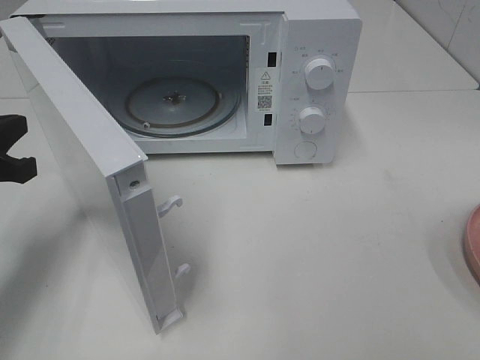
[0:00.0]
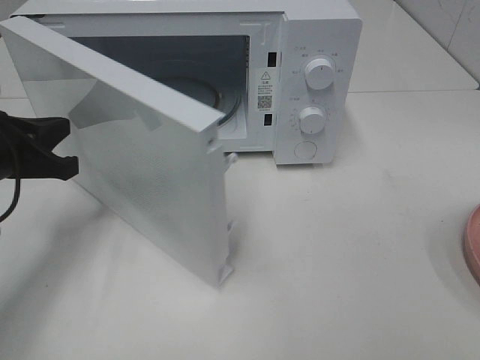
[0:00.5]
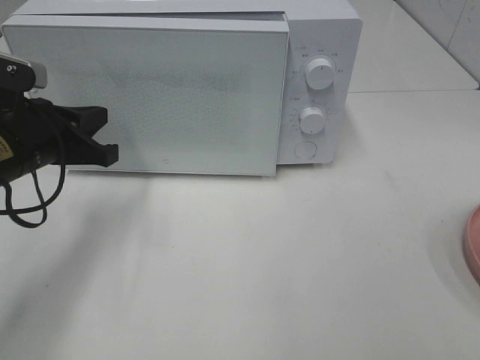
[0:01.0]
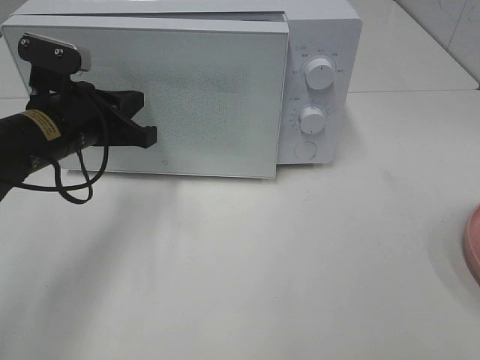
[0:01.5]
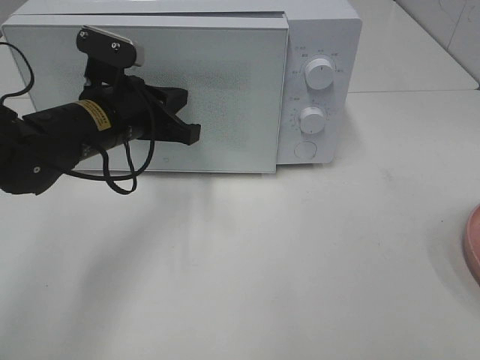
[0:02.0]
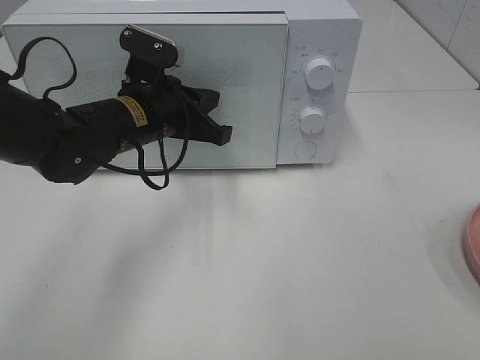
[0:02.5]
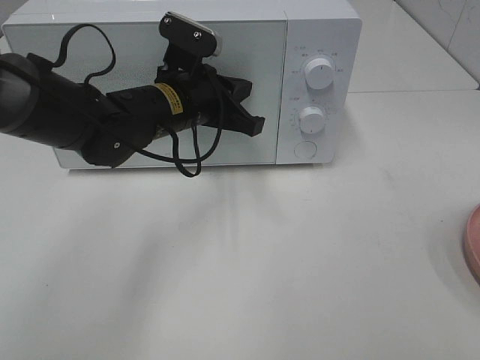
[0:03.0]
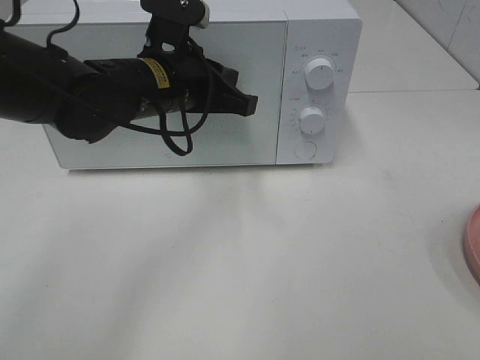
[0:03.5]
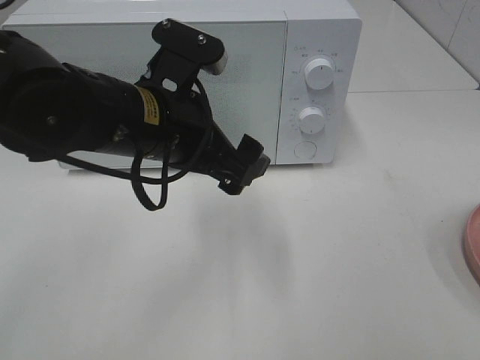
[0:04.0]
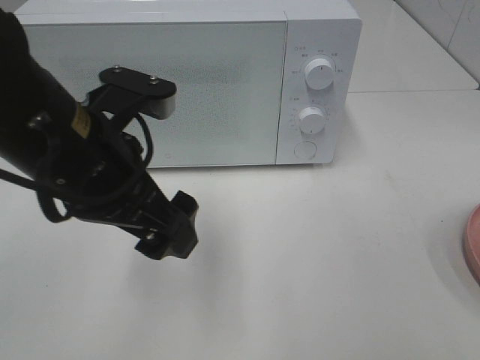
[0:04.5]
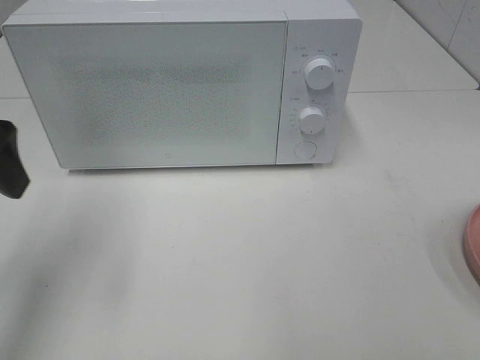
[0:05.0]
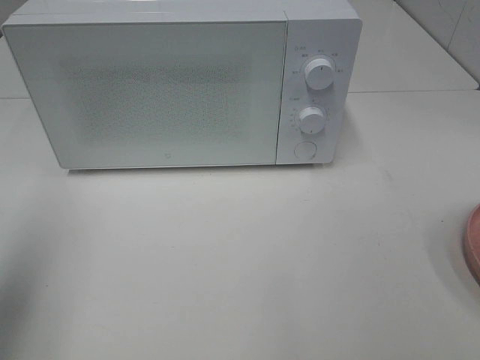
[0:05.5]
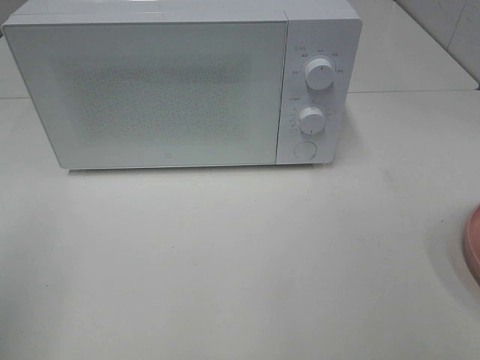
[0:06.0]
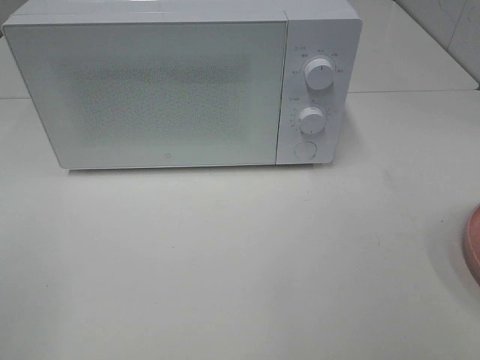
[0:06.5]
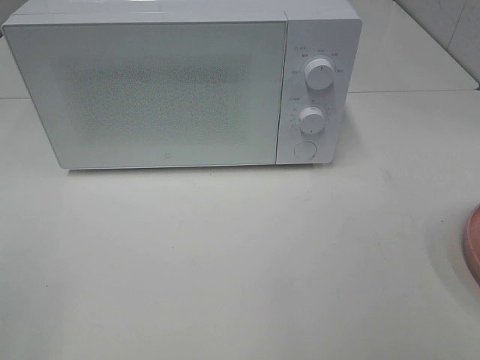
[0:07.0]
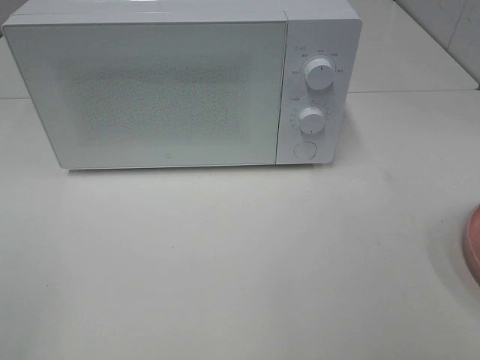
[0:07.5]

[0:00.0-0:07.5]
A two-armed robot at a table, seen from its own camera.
Task of the whole recording: Heat the burger.
Step, 0:00.0 to 0:03.0: Left hand: close the microwave door.
0:00.0 to 0:02.0: The left gripper moves to the right and forward, about 15 cm.
0:02.0 to 0:04.0: The left gripper is displaced backward, to the right and upward by roughly 10 cm, and opens its fingers.
0:04.0 to 0:05.5: The left gripper travels to the left and backward by about 25 cm.
0:05.5 to 0:07.5: The left gripper goes about 15 cm backward.

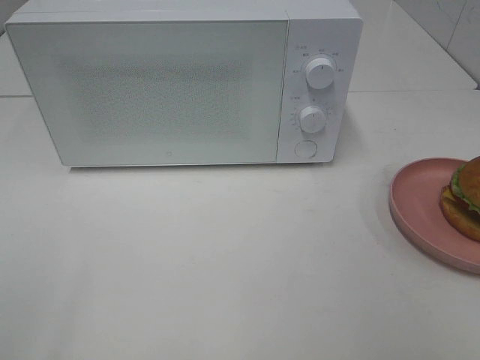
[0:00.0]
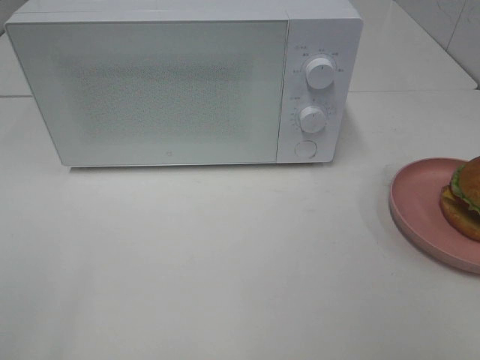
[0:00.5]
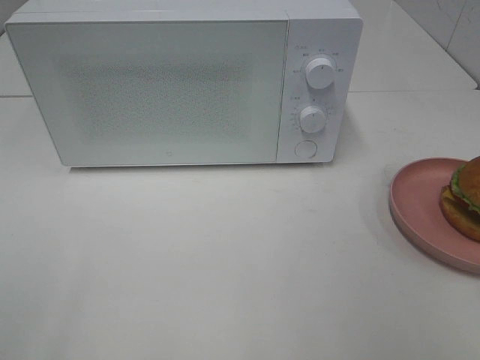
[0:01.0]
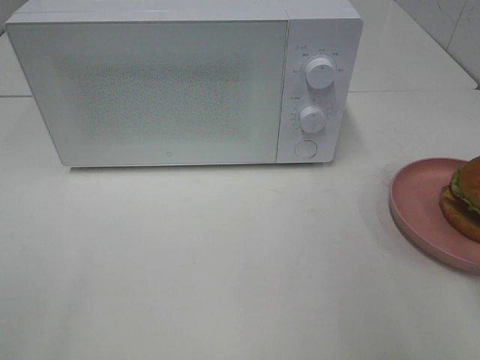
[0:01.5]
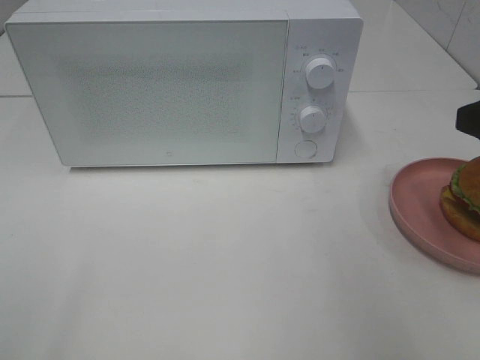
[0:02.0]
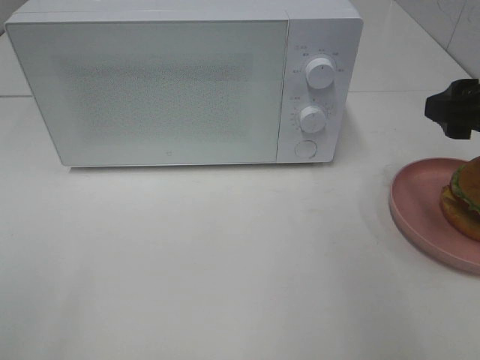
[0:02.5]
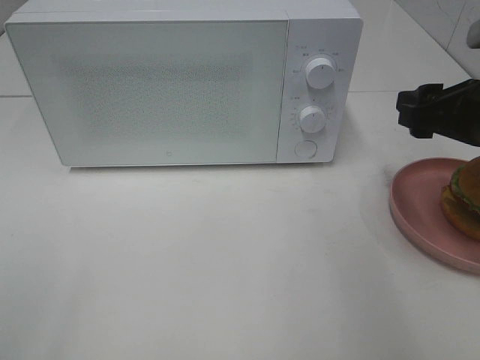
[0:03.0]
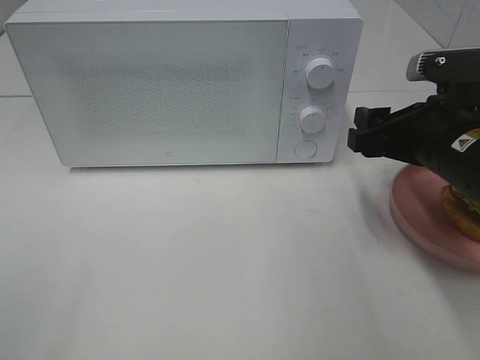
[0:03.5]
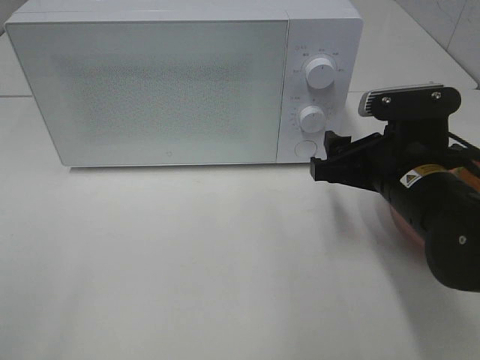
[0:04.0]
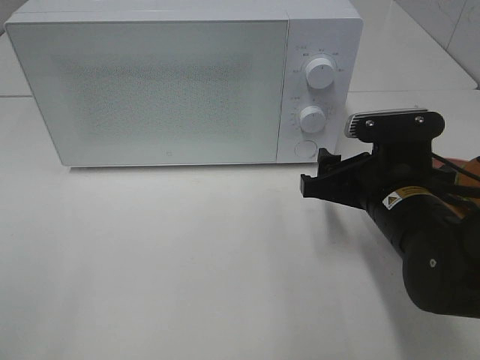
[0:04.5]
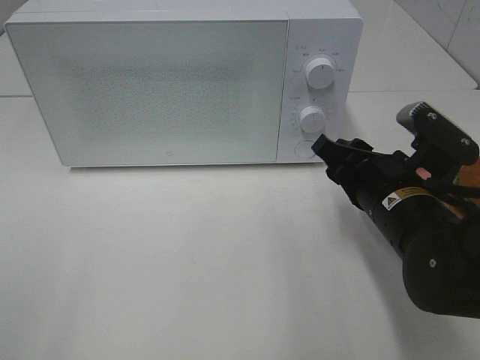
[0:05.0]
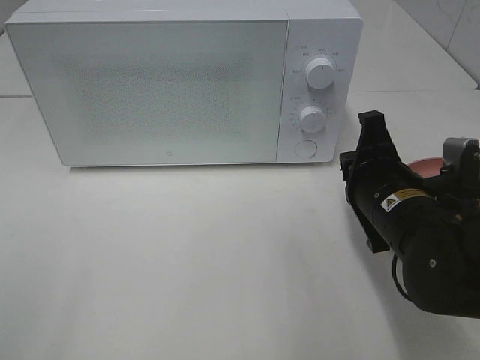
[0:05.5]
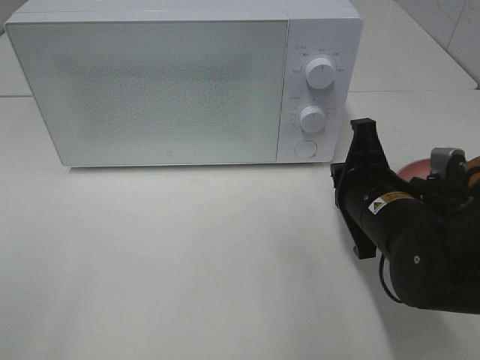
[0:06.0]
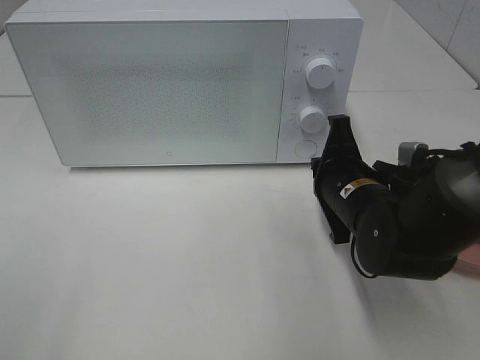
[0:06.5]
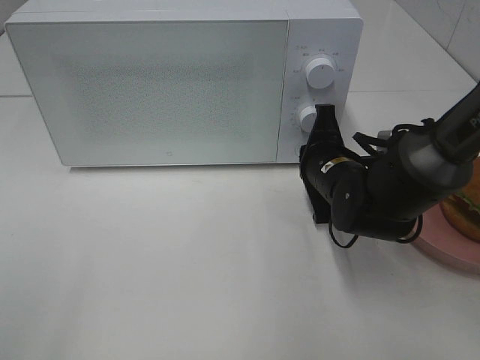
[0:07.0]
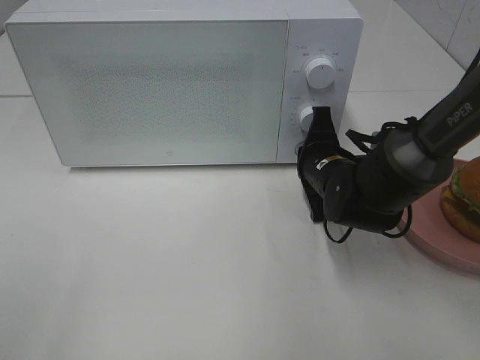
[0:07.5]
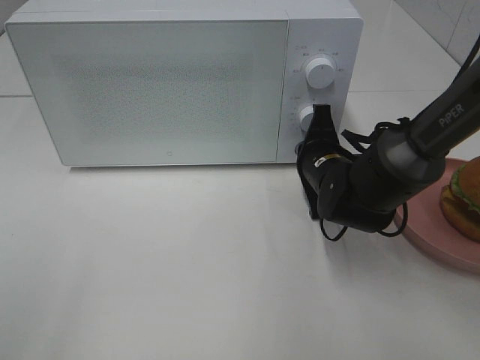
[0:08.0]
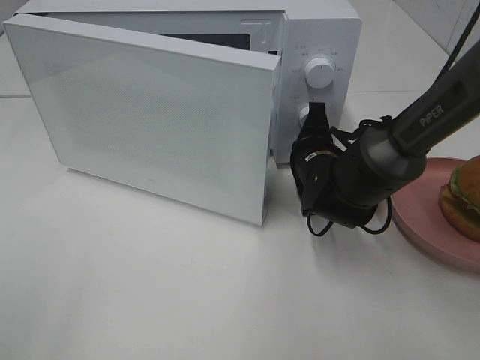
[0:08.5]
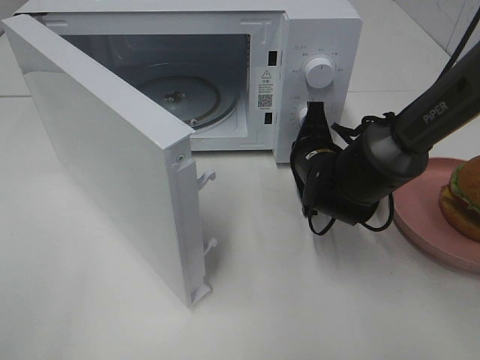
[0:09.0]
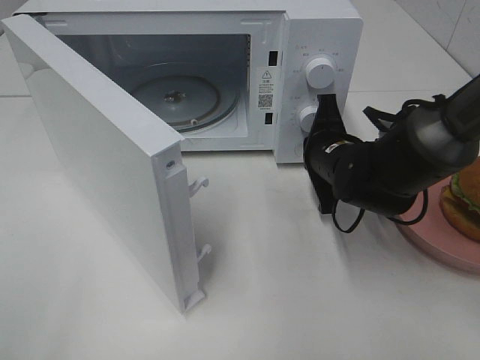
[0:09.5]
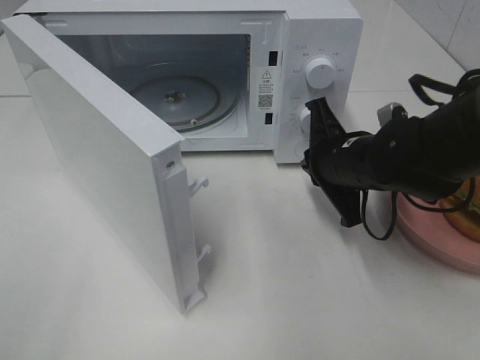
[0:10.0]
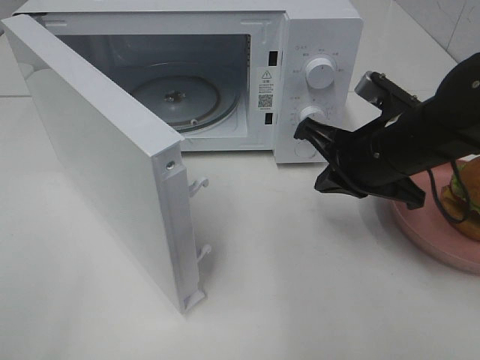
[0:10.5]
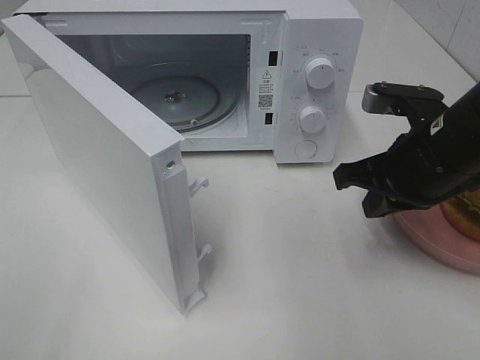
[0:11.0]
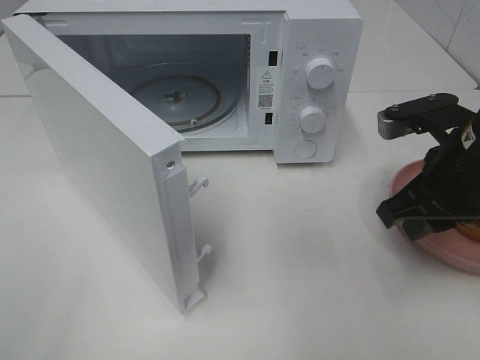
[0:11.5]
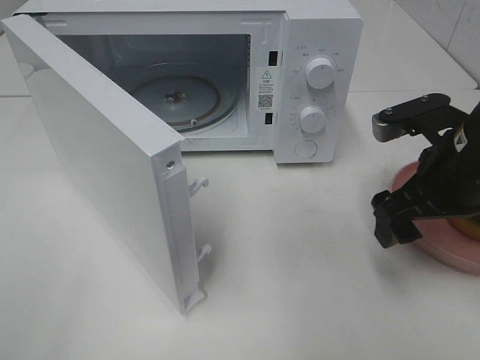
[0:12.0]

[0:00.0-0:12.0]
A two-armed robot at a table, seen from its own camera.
Task of the whole recording: Heat the burger.
Step, 0:00.0 to 0:09.5: Right hand: press the switch.
0:02.0 to 0:04.0: The right gripper goes some 15 cm downward, to the left and forward.
0:04.0 to 0:06.0: The right gripper closes.
0:06.0 to 0:08.0: The right gripper moves forward, roughly 10 cm.
0:08.0 to 0:10.0: The right gripper travels upward by approximately 5 cm.
0:10.0 to 0:12.0: The right gripper shifts roughly 10 cm to the right, backward and upward, and opens its fingers.

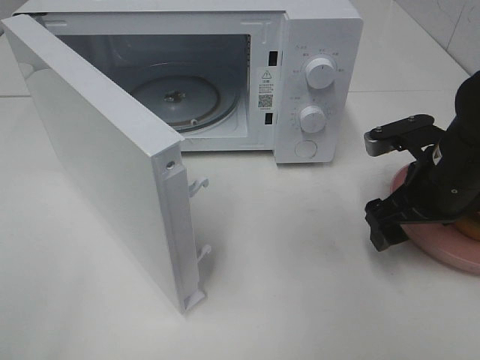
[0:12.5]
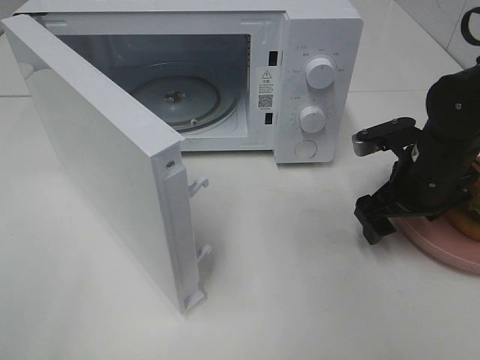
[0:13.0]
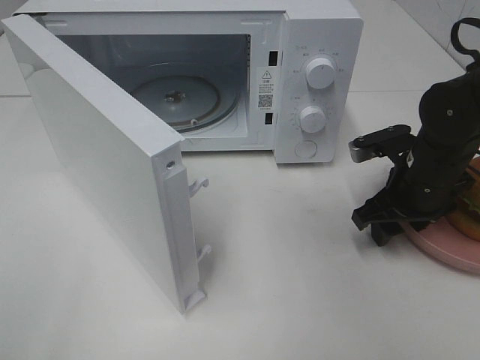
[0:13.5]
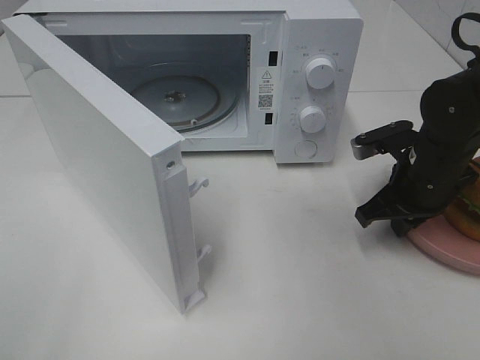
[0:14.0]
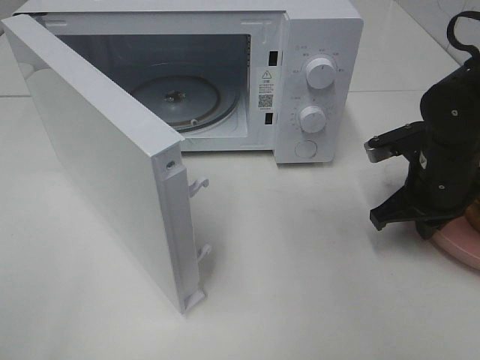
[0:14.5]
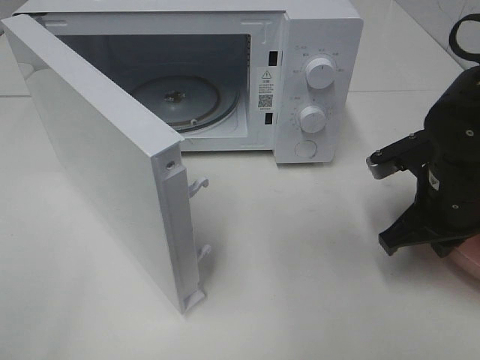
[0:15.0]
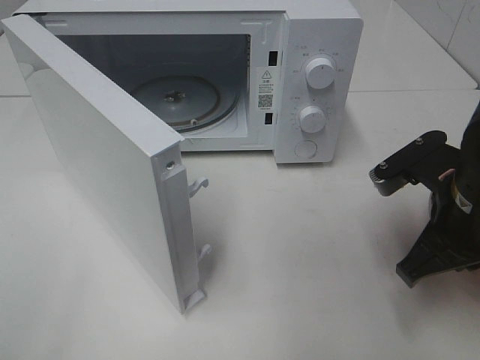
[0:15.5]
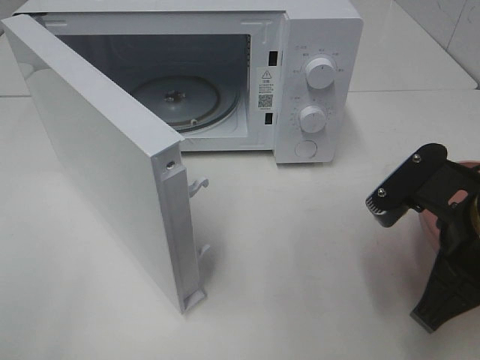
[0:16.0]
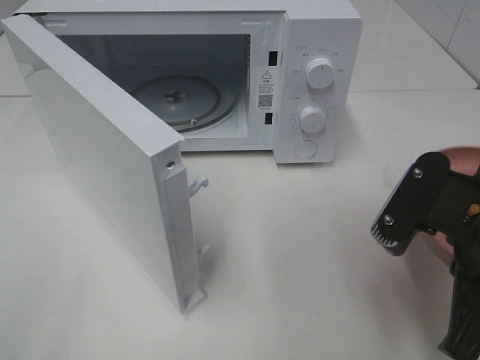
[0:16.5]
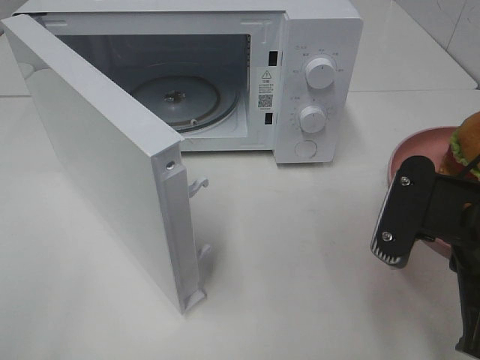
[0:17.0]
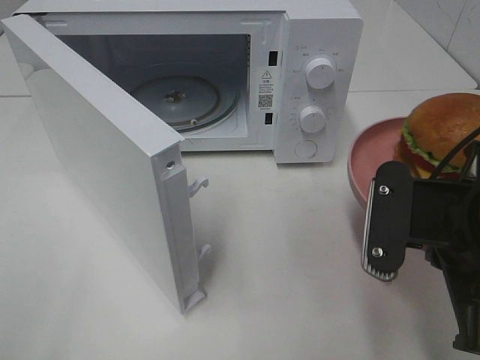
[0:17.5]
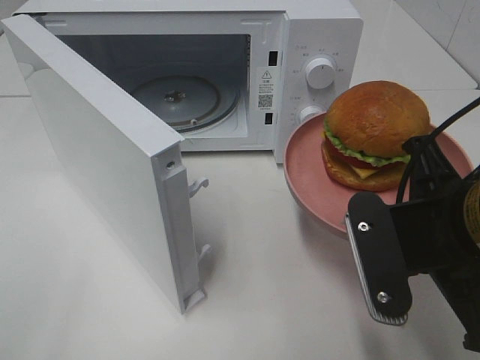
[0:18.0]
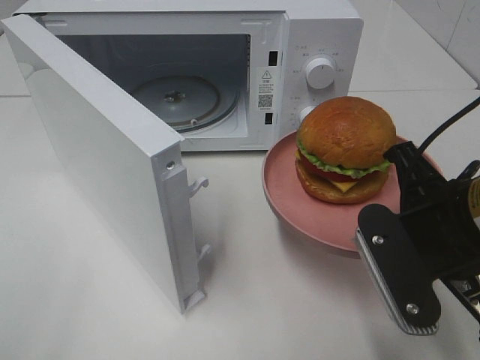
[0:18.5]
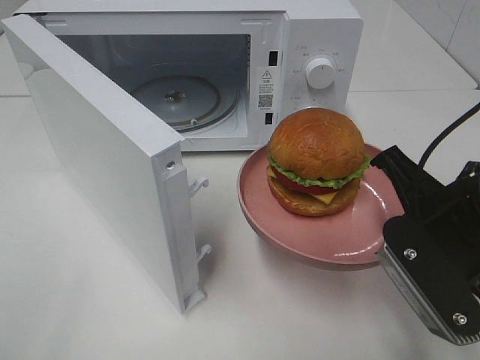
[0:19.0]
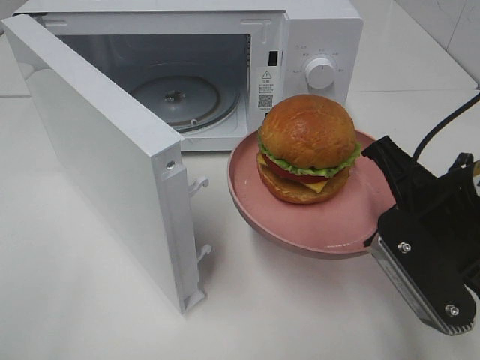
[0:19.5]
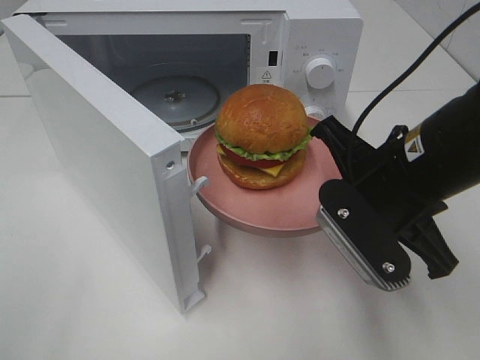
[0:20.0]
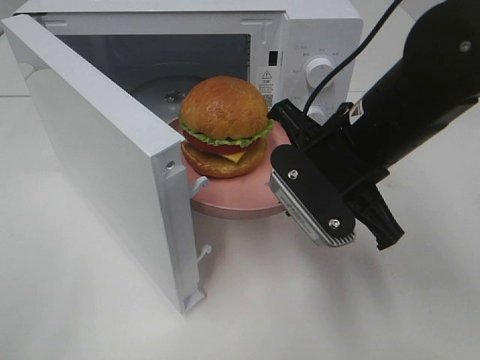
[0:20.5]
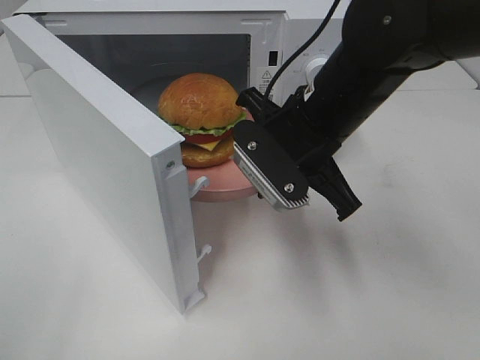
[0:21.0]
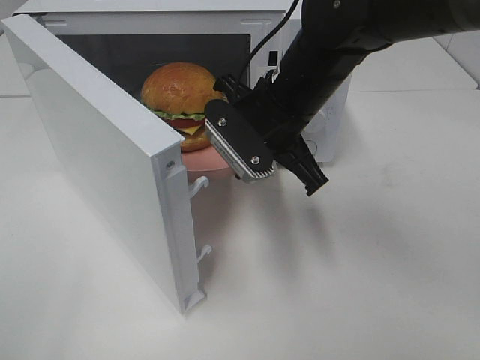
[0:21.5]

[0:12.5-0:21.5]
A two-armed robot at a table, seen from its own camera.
Task of the whole recording: Heat the burger.
0:12.5 to 0:14.5: The right gripper closes up.
0:14.5 to 0:17.0: The right gripper goes about 20 cm backward and upward.
0:19.5 to 0:21.5: The right gripper shifts about 20 cm forward and to the left.
